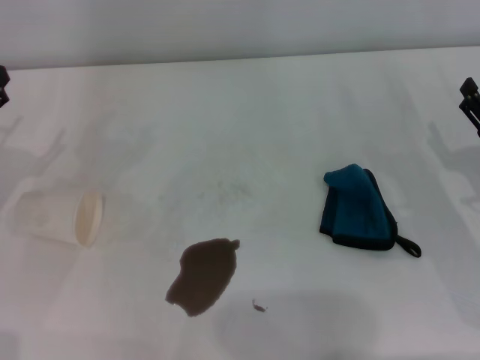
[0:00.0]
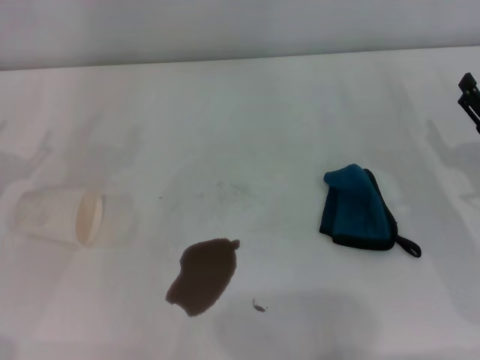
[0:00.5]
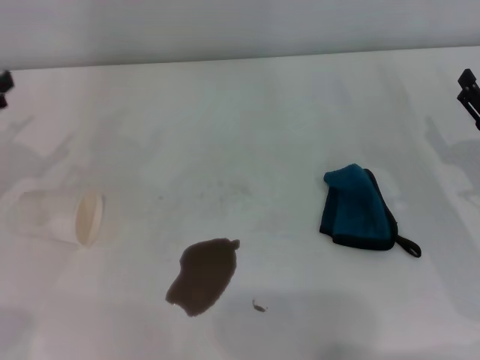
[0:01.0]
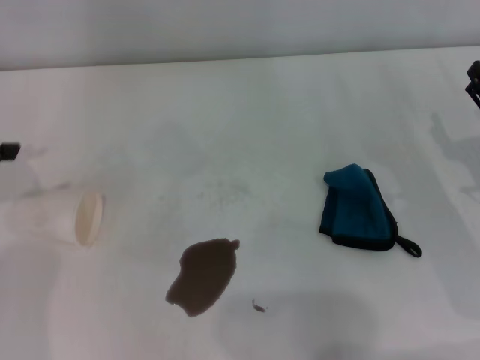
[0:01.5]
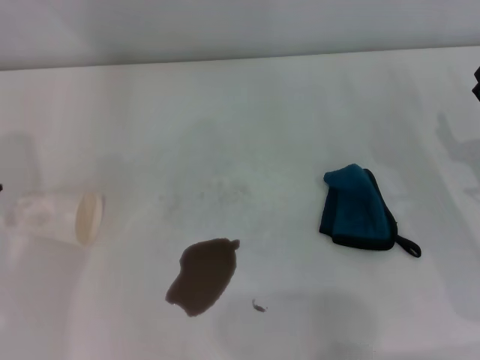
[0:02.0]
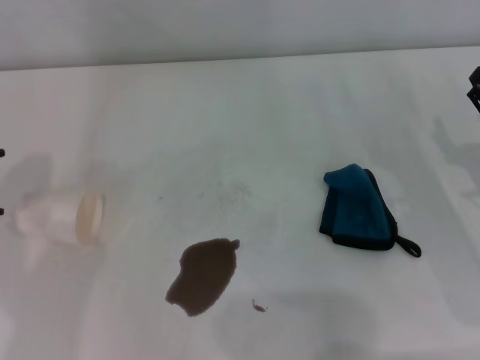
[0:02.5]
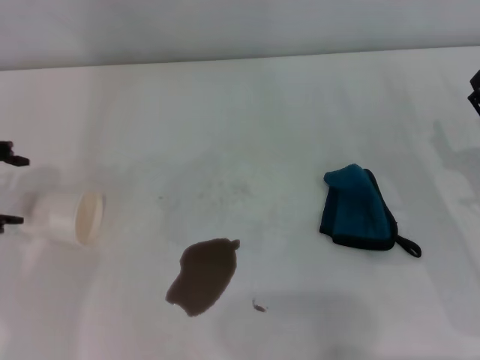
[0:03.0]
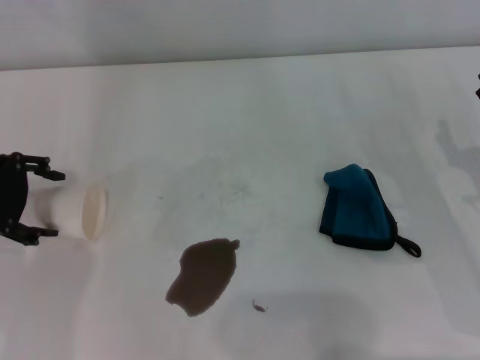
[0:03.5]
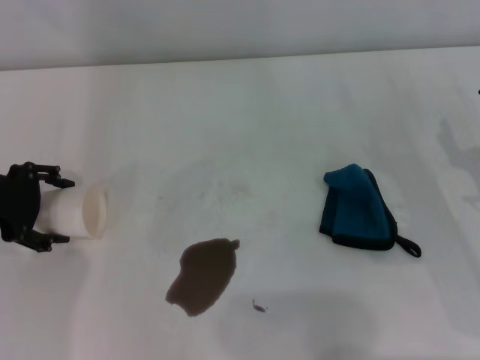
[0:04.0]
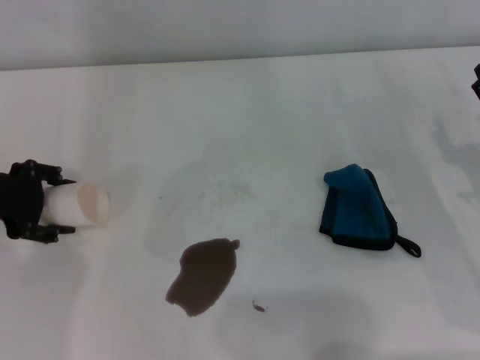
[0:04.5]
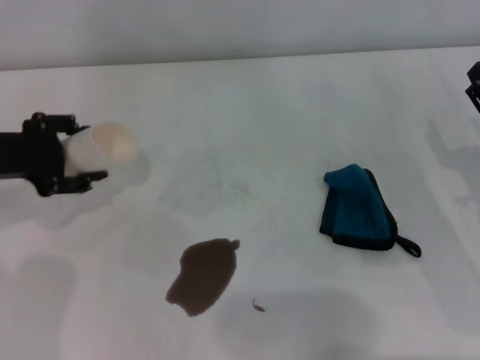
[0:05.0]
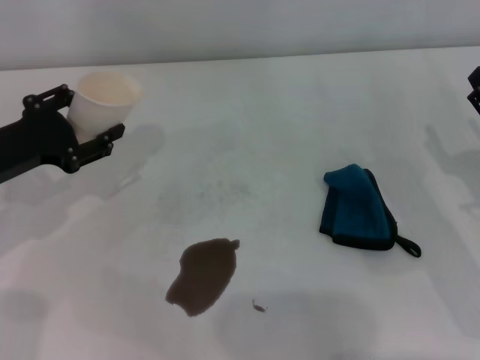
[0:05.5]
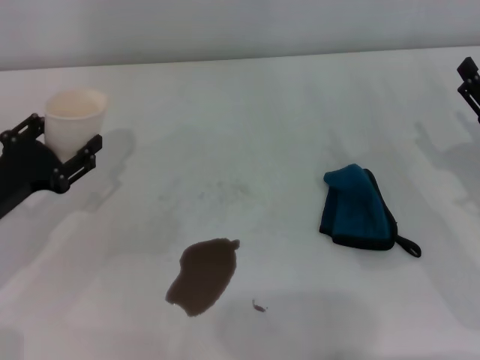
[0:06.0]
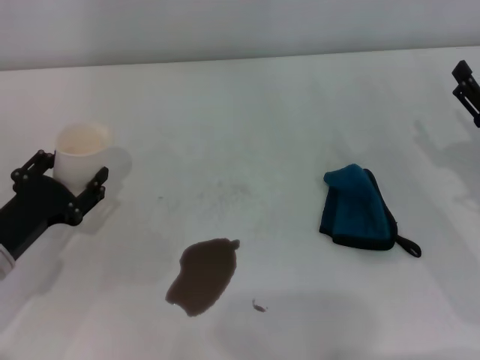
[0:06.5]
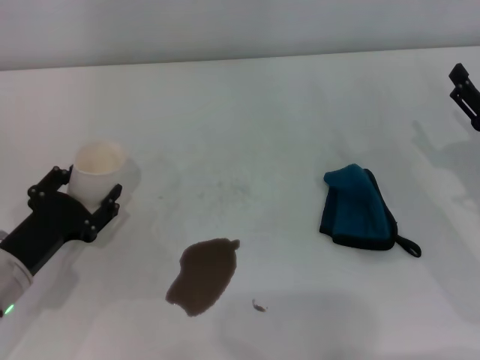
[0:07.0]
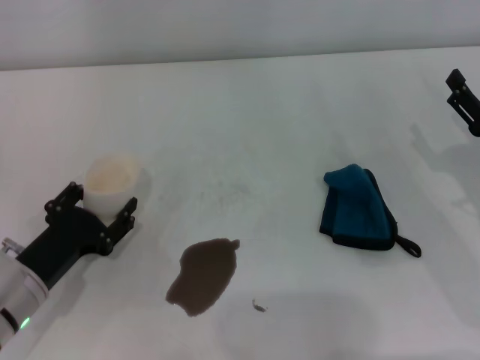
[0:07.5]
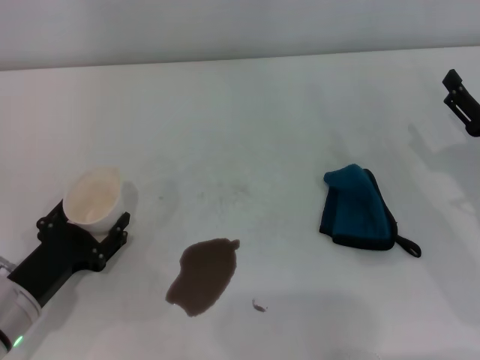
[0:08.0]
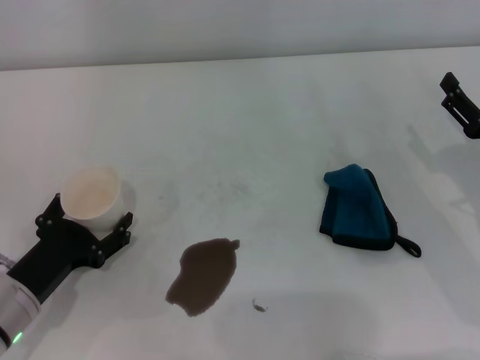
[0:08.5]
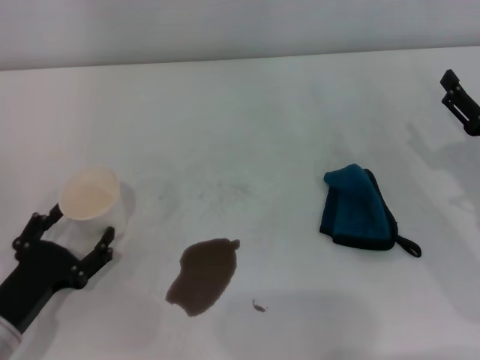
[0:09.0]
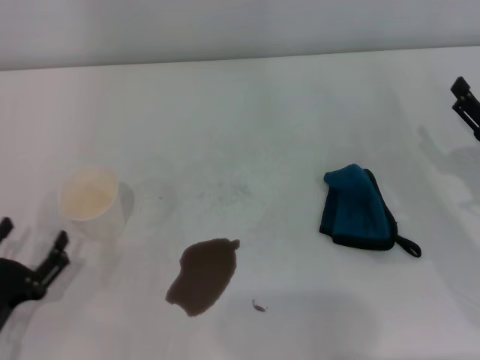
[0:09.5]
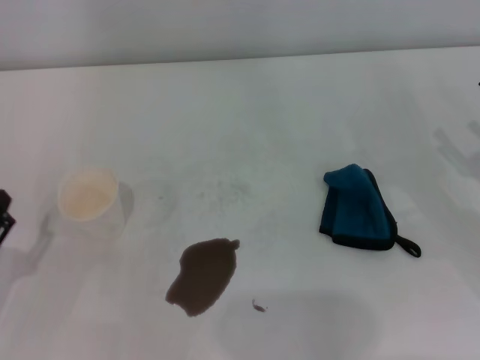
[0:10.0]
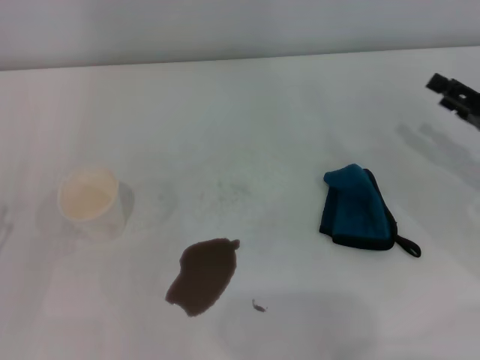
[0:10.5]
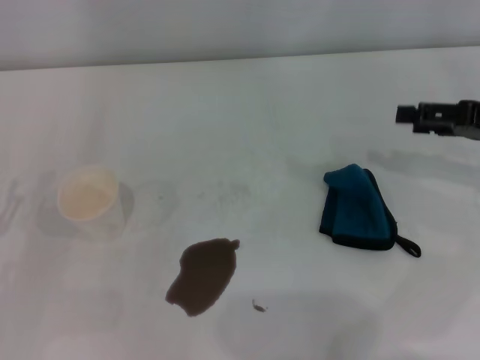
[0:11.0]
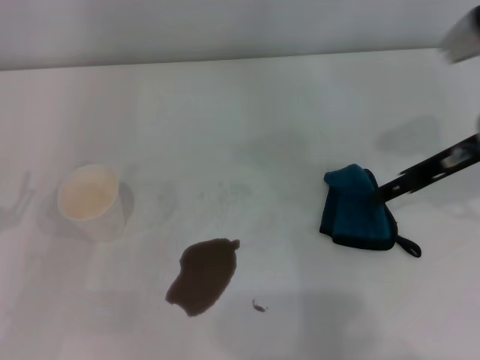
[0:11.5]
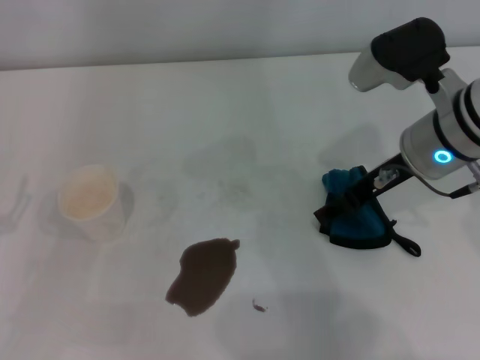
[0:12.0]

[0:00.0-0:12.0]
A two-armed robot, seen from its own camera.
Step, 0:00.0 to 0:04.0: Grasp the paper cup with the left gripper.
Step, 0:04.5 to 0:08.0: Stand the paper cup upright with the left gripper.
0:02.0 to 0:04.0: The left gripper heads downward, covering roughly 10 cm.
0:04.0 to 0:06.0: The left gripper goes roughly 10 cm downward and backward, and closes.
0:06.0 to 0:08.0: The left gripper shifts roughly 10 cm backward and downward, and opens.
0:08.0 to 0:10.0: The left gripper shifts roughly 10 cm to the left and backward, and opens.
0:10.0 to 0:12.0: The right gripper goes about 20 cm to the left, forward and upward.

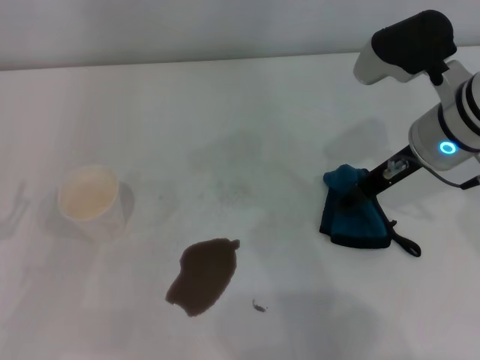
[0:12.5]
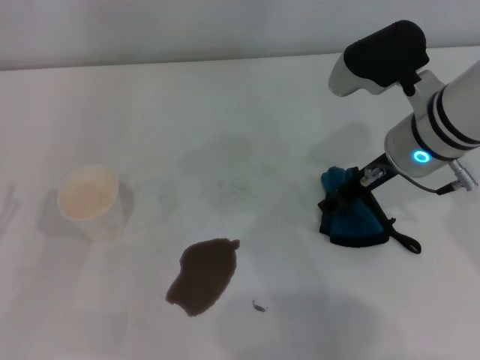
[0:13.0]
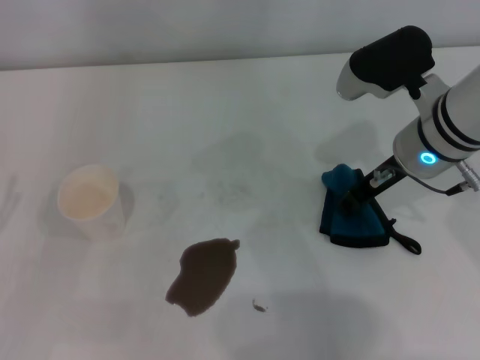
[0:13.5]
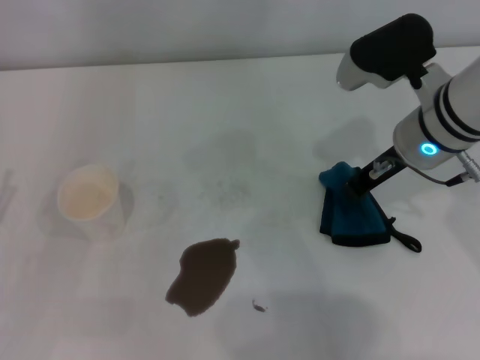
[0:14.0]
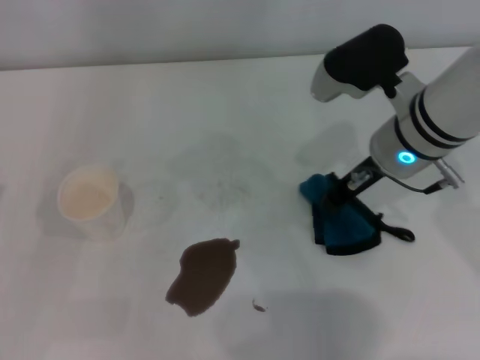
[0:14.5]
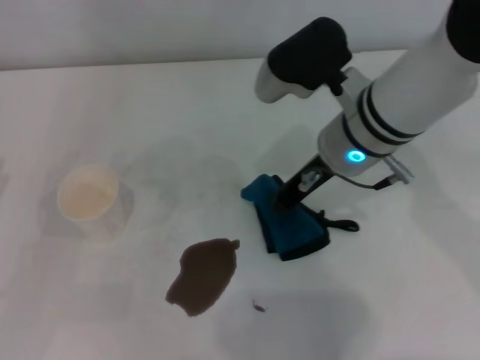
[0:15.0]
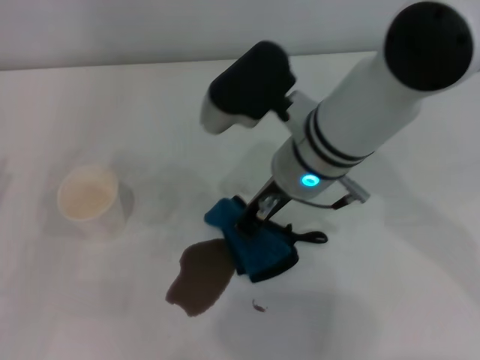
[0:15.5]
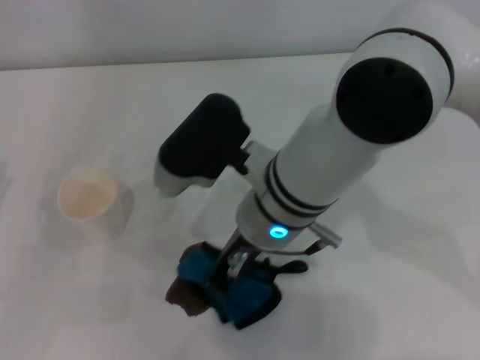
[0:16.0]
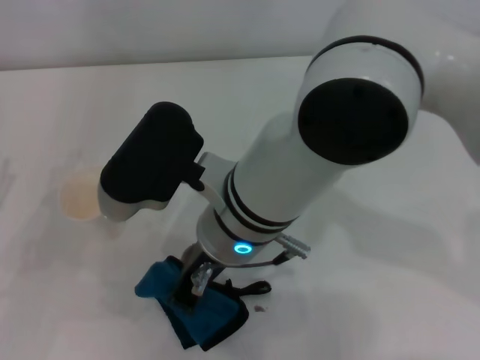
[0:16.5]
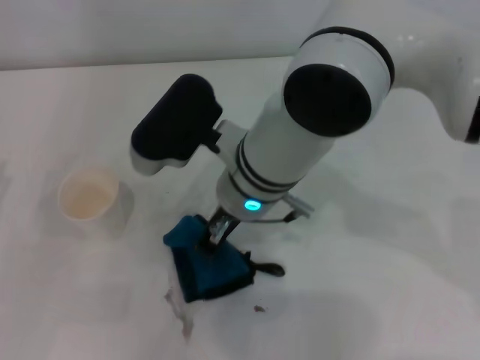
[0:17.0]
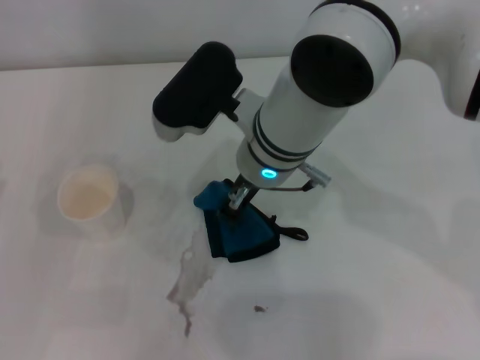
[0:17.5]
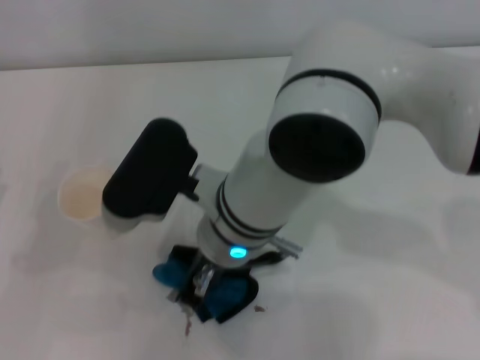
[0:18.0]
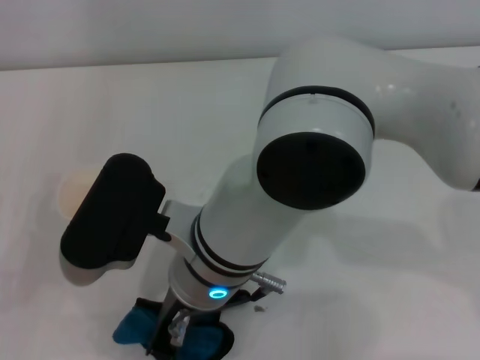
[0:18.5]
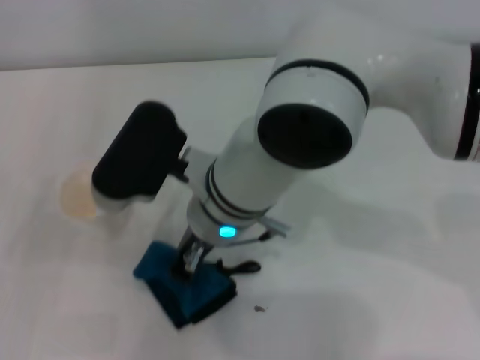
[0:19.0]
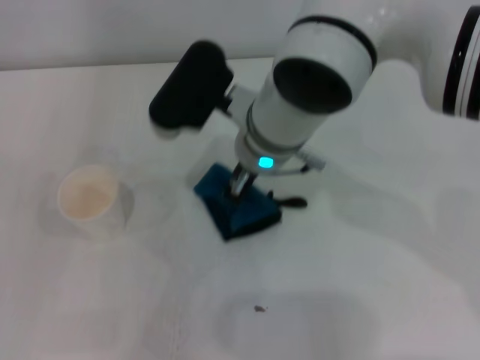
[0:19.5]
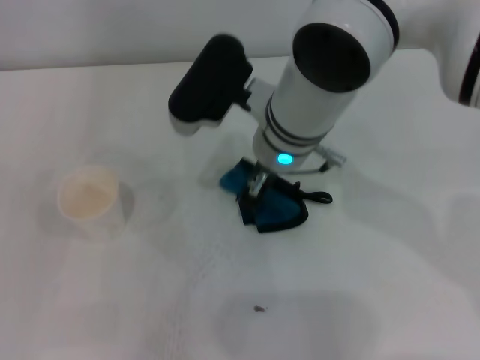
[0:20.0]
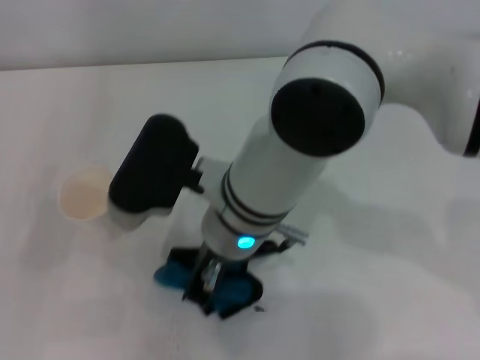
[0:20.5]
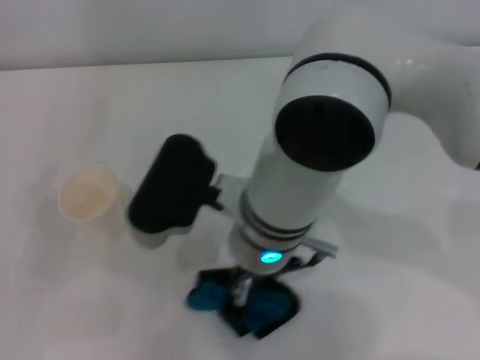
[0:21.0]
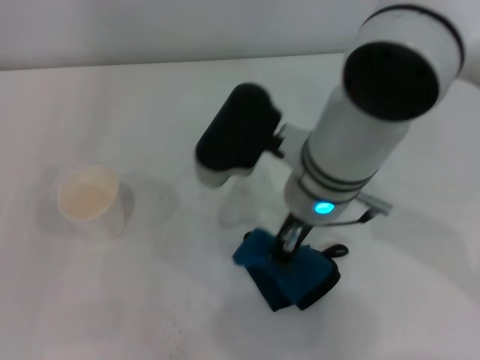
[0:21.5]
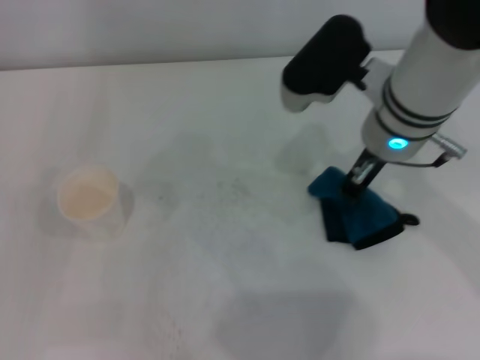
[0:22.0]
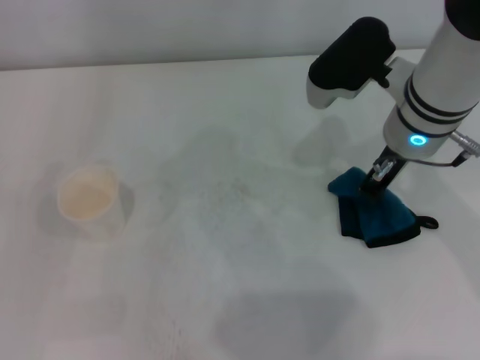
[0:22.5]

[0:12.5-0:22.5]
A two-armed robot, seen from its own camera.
Step, 0:14.5 to 0:22.0: Wipe the stains off the table with the right gripper.
0:12.5 to 0:14.5: The right gripper closes up.
0:14.5 to 0:16.5: The right gripper goes about 20 cm to the left and backward.
0:16.5 to 0:18.5: The right gripper moves about 5 cm forward and comes back.
0:20.5 to 0:22.5: The right gripper is displaced to the right and forward by about 20 cm.

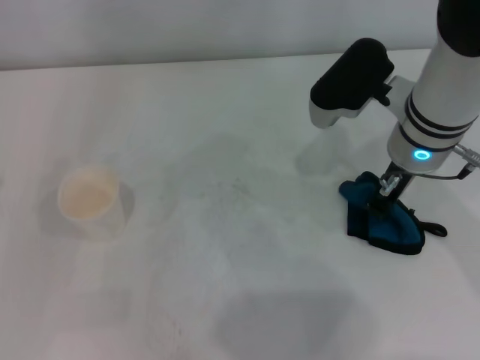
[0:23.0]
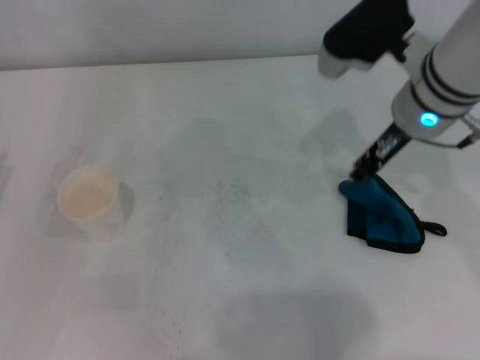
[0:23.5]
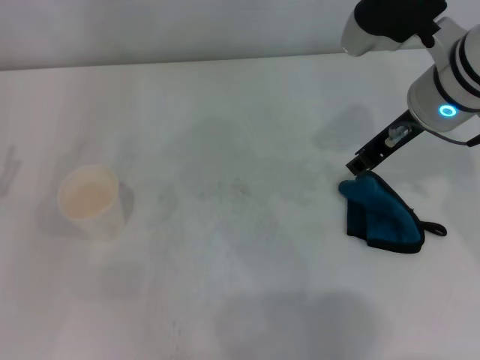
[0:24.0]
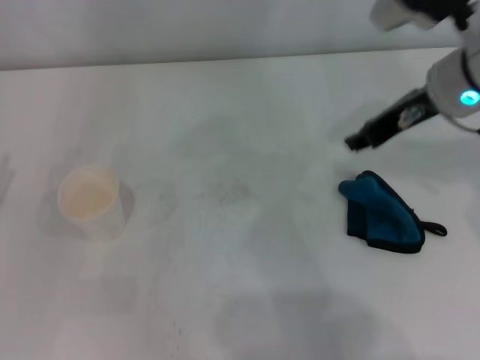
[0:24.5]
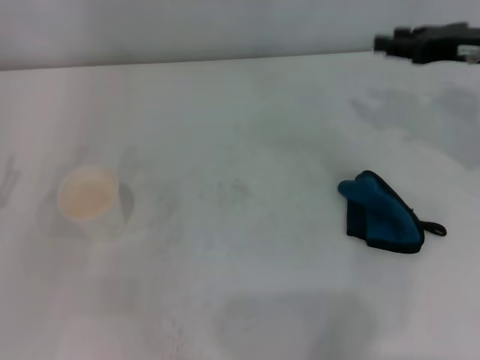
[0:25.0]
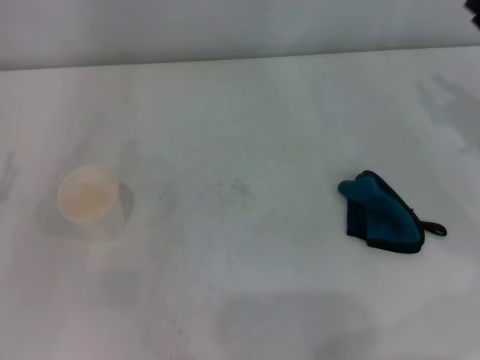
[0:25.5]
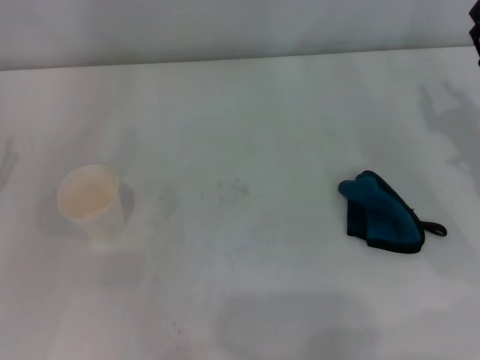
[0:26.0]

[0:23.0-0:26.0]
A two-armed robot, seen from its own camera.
0:23.0 to 0:24.5: The right gripper travels upward by roughly 5 cm, and opens up.
0:24.5 to 0:26.0: The right gripper travels to the right, downward and backward by roughly 15 cm.
